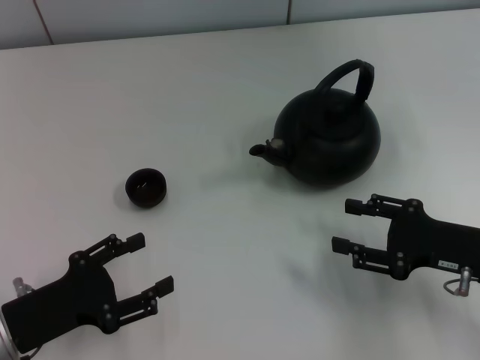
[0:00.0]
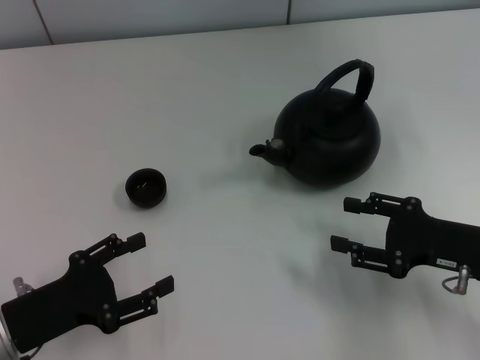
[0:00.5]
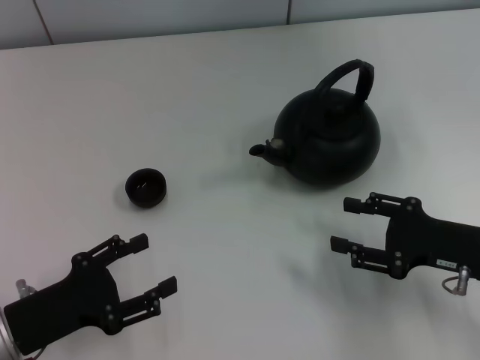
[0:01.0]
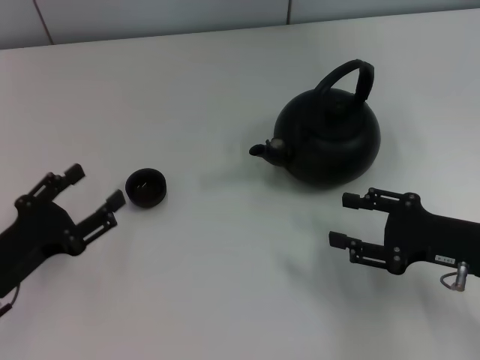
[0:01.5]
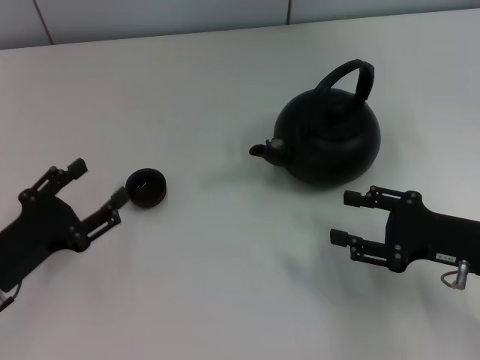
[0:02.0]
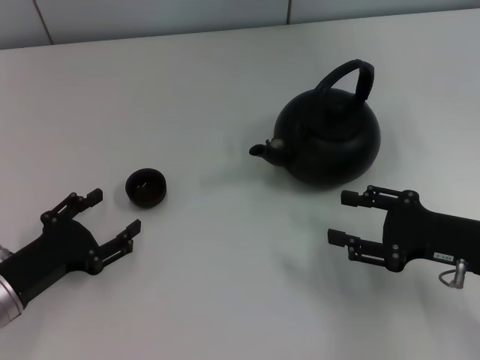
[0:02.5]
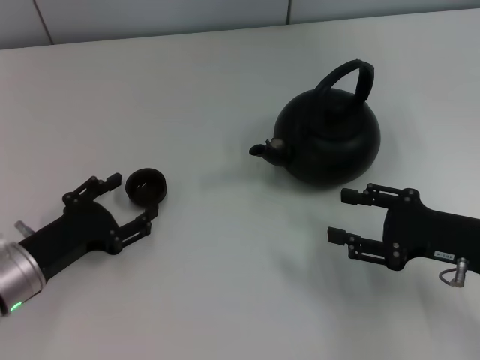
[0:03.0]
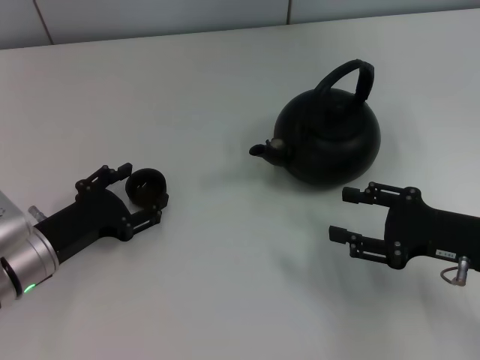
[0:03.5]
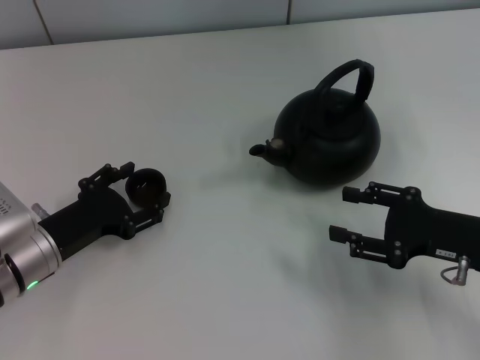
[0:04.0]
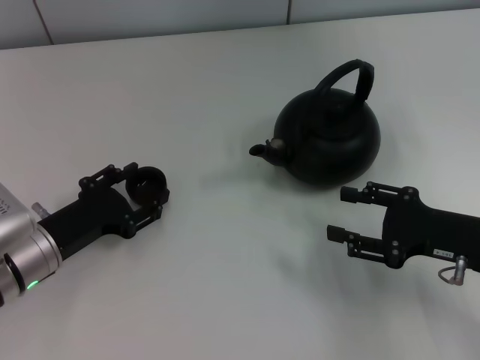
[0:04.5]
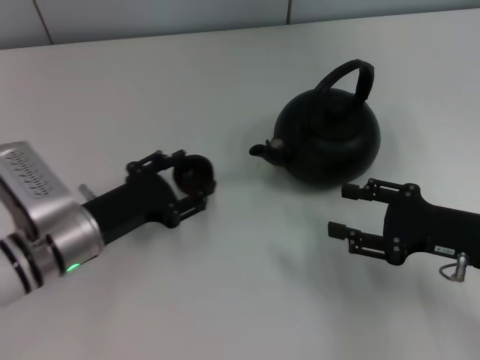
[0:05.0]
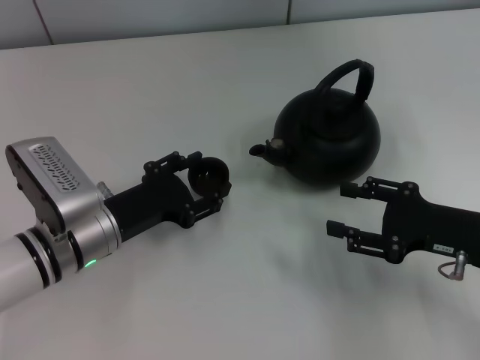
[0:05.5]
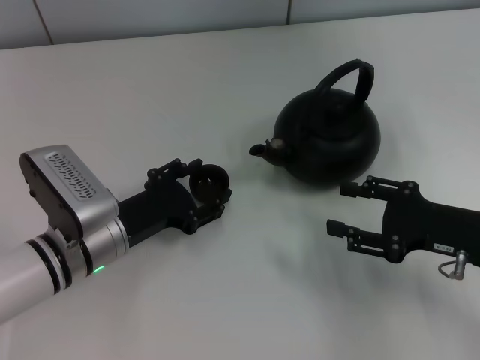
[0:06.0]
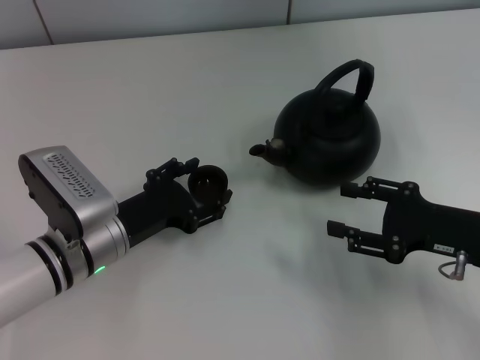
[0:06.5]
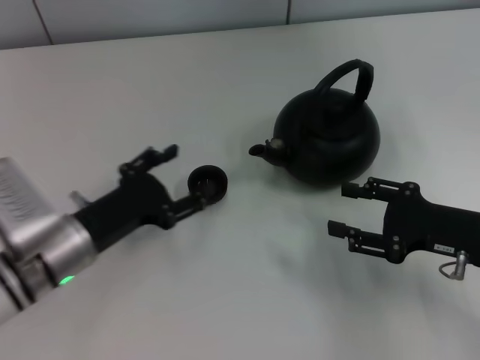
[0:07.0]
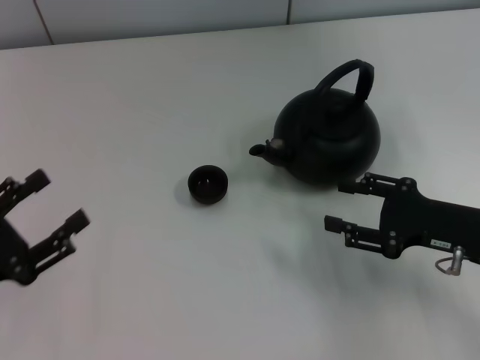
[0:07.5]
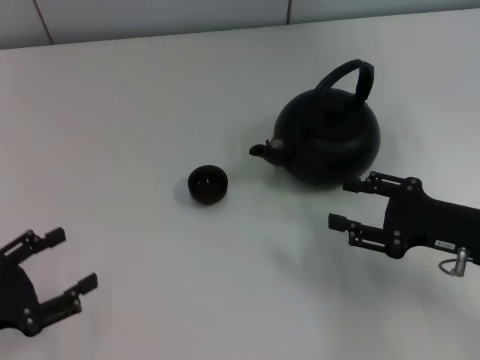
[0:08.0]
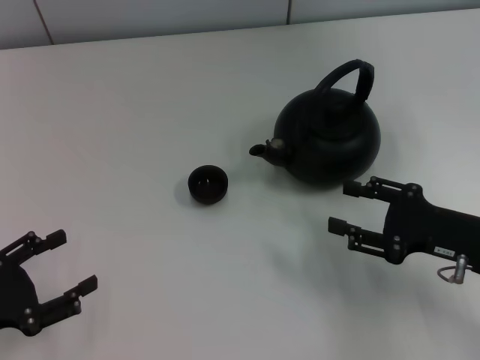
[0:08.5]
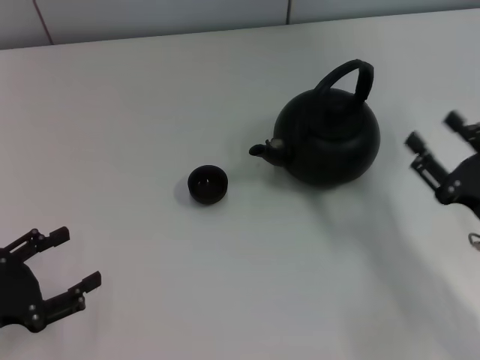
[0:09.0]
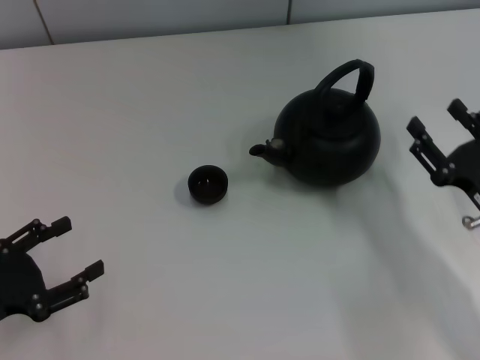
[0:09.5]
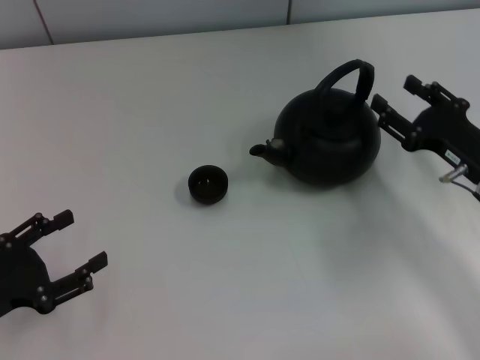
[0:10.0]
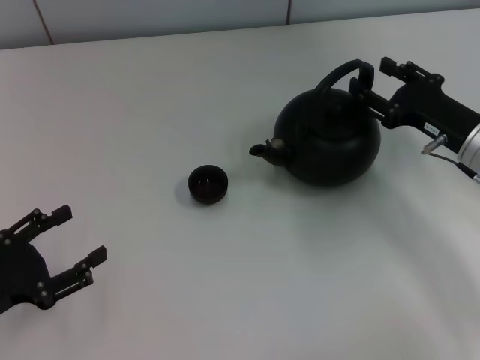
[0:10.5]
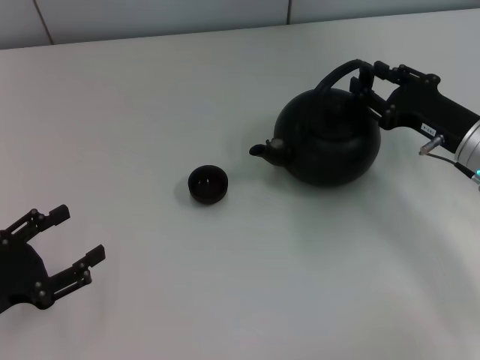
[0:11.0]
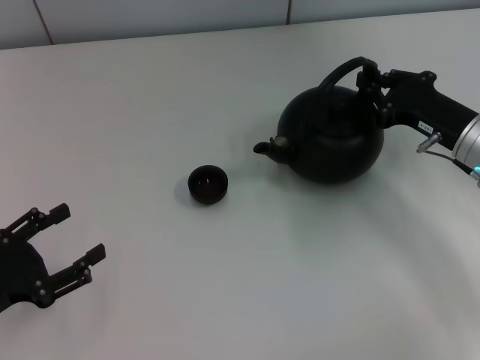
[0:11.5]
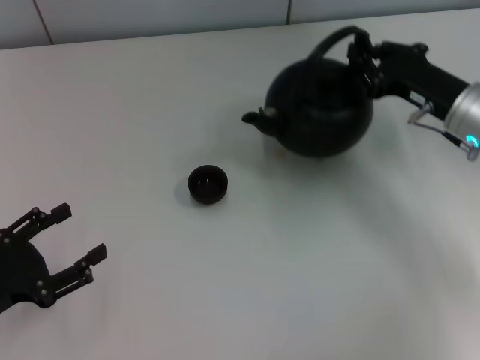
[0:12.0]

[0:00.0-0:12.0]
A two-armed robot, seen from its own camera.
Task of the whole recording: Grasp the handle of the teapot with one hand and pour tea into the teacup.
Step, 0:00.0 to 0:05.0: Pick up the teacup with the left gripper.
Step, 0:05.5 to 0:07.0: Place the teacup in the center of view with the left gripper.
0:02.0 to 0:04.0: The left gripper moves roughly 5 cm.
0:04.0 to 0:06.0: The left gripper travels to the right by approximately 5 cm, and closes.
0:06.0 to 0:08.0: The left gripper moves to the left and backward, roughly 20 cm, and opens.
0:10.0 to 0:12.0: The right gripper moves forward, about 5 cm, and closes its fingers.

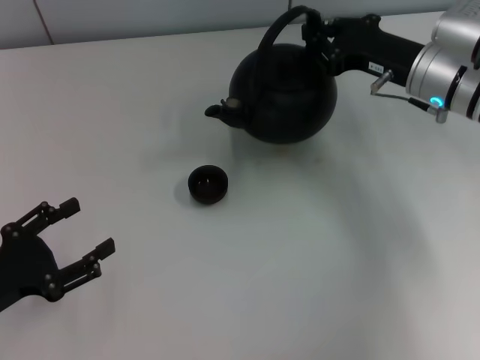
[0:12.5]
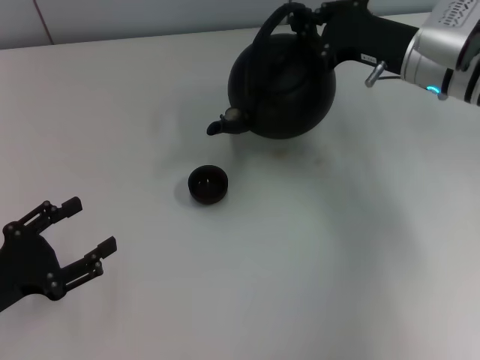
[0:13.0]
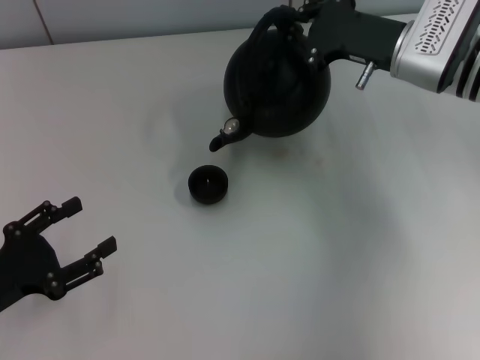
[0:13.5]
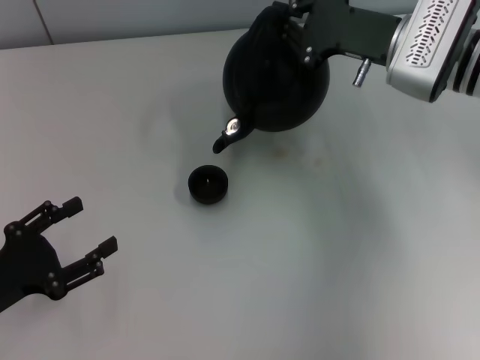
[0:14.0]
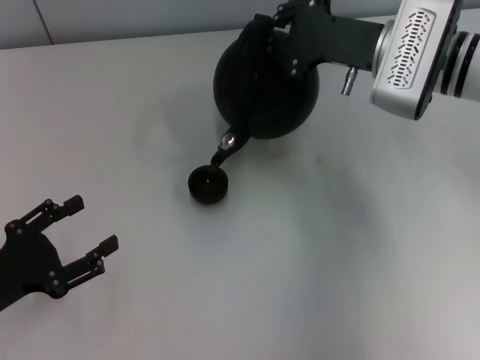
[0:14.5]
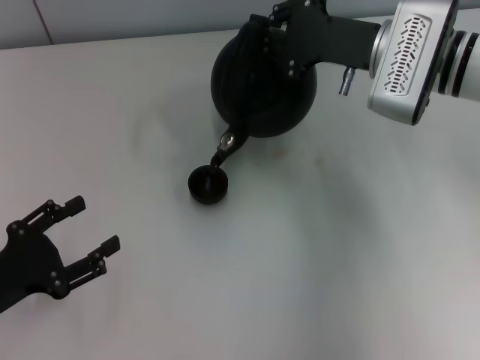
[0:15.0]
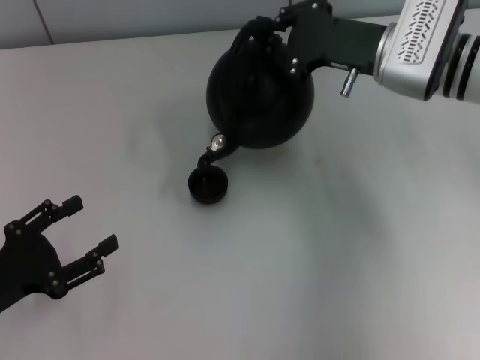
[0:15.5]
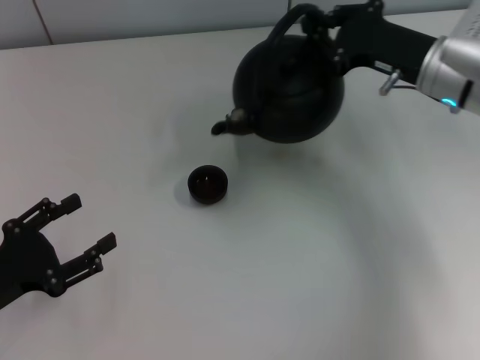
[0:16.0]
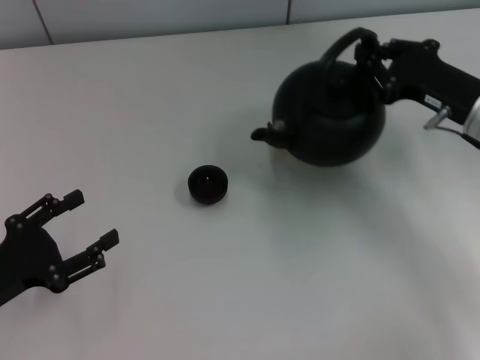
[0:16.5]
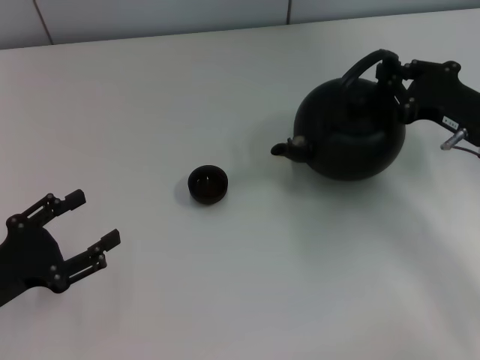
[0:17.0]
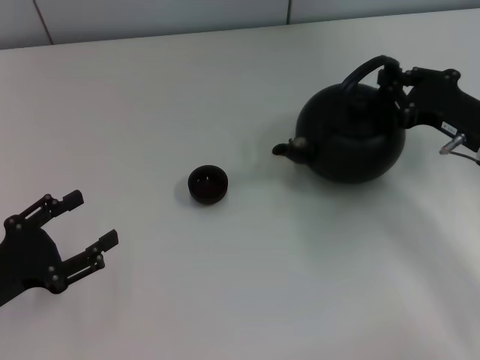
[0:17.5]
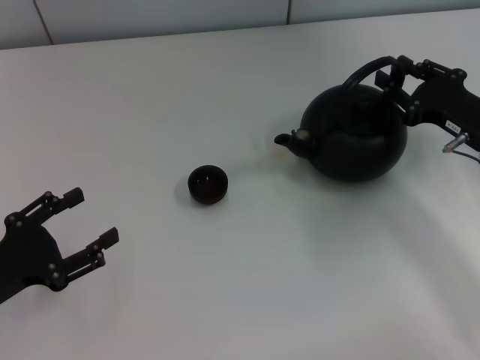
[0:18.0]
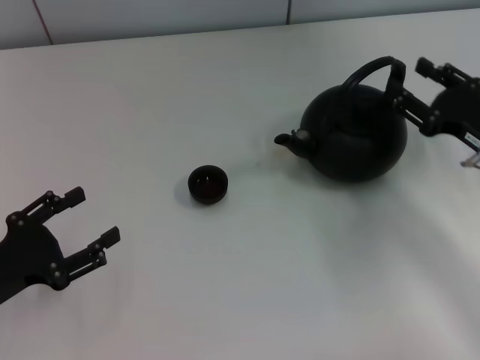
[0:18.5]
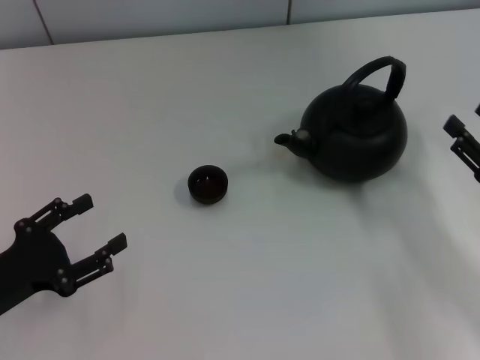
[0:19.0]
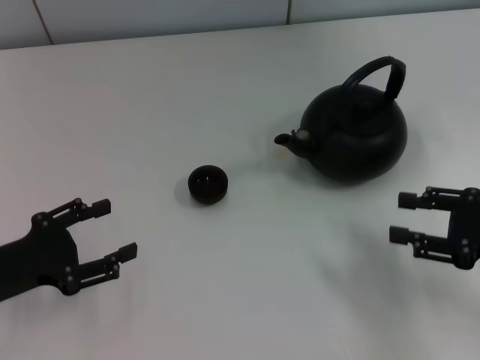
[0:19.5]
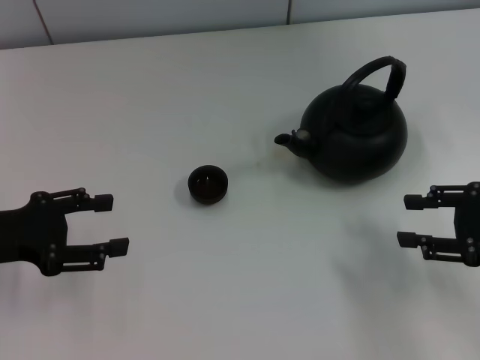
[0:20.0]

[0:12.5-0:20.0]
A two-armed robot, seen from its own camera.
Task of the whole recording: Grasp the handle of the teapot with one hand and pour tea into the teacup.
Step, 0:16.0 to 0:18.0: Put down the teapot with the right gripper.
0:12.5 to 0:14.5: The right gripper ends up approximately 5 cm from where it was.
0:14.5 to 0:16.5: The right gripper moves to the right and backward, about 10 cm.
0:16.5 to 0:18.0: The grippers make only small movements.
0:18.0 to 0:20.0: The left gripper goes about 10 cm forward and upward; the right gripper is displaced backward by roughly 10 cm, and opens.

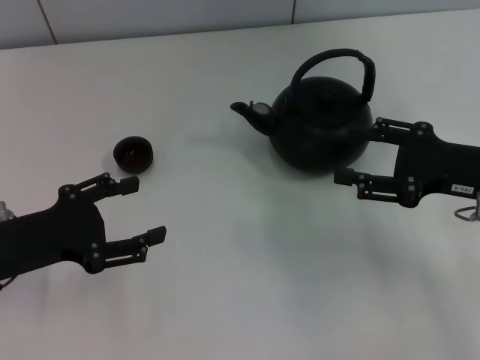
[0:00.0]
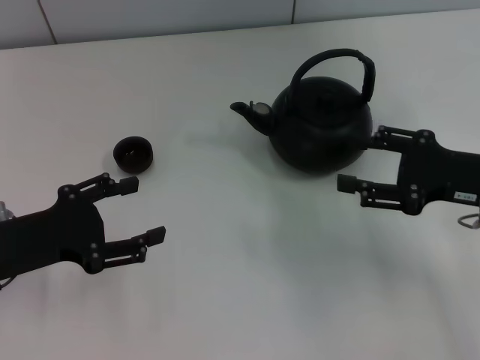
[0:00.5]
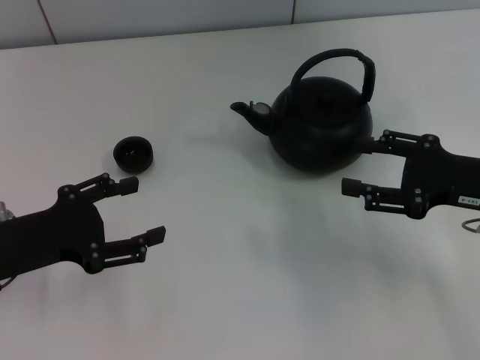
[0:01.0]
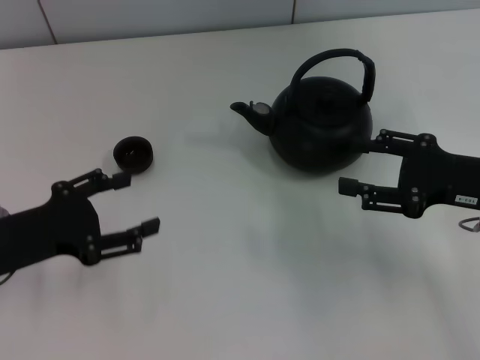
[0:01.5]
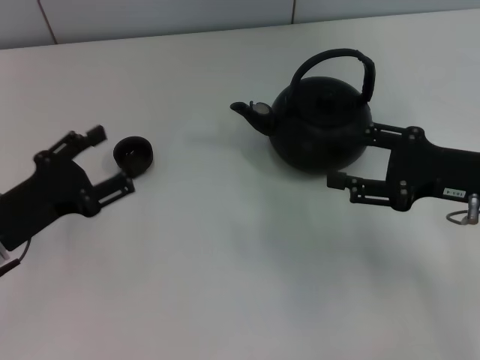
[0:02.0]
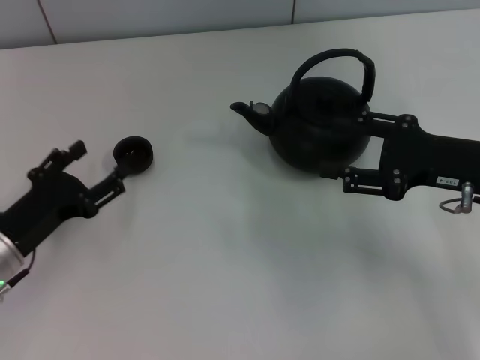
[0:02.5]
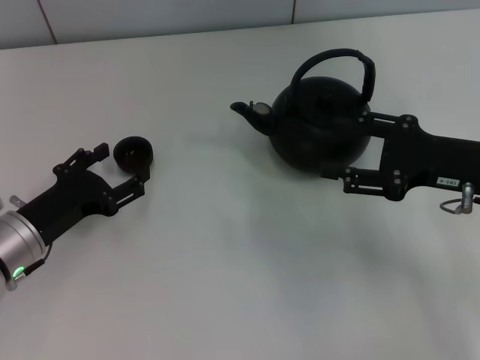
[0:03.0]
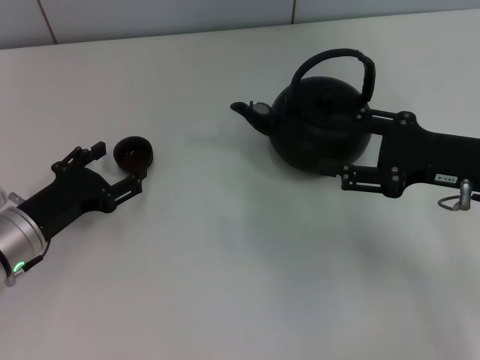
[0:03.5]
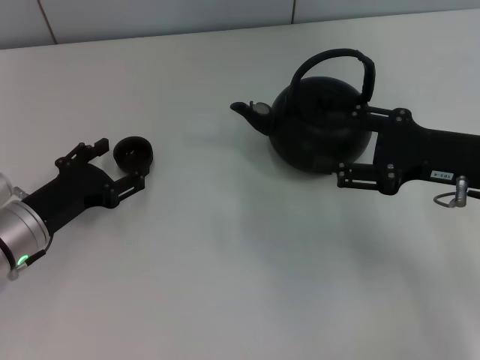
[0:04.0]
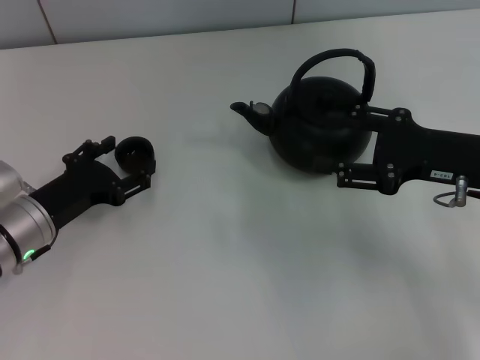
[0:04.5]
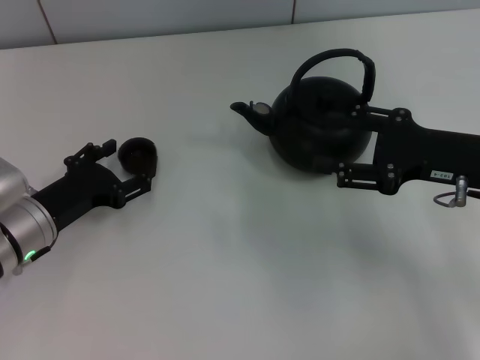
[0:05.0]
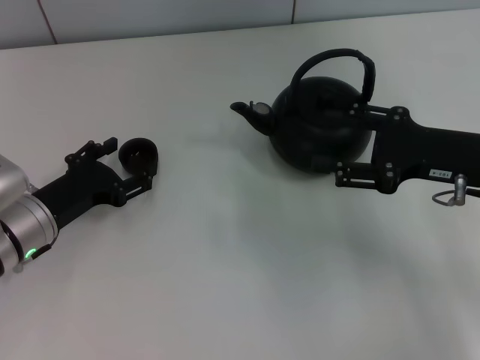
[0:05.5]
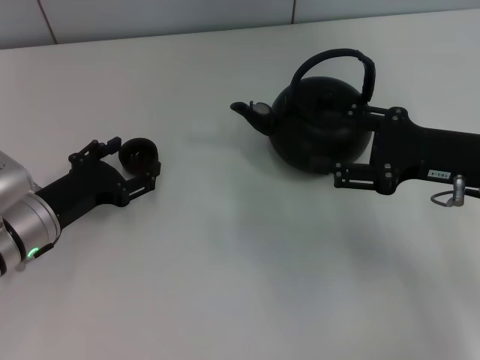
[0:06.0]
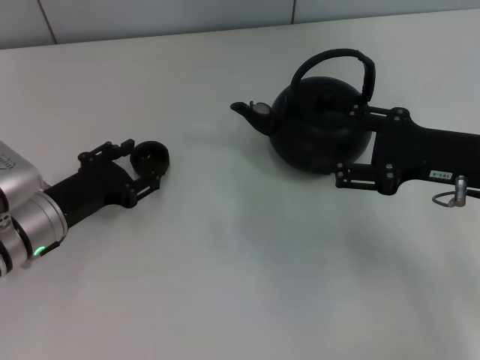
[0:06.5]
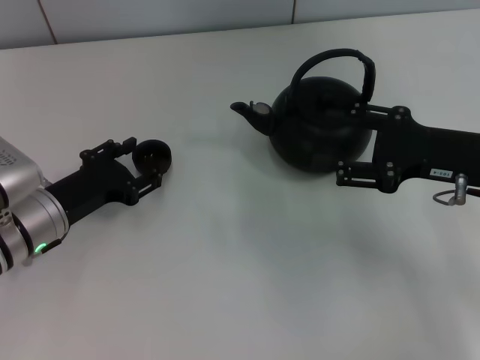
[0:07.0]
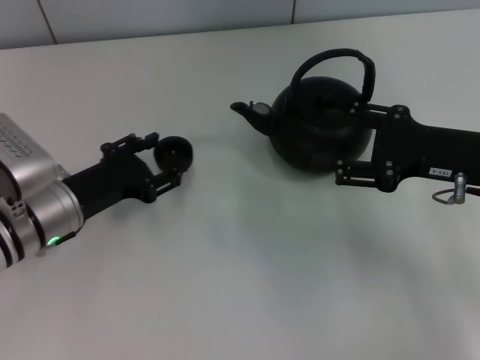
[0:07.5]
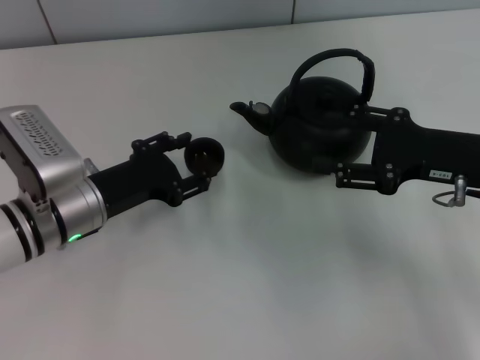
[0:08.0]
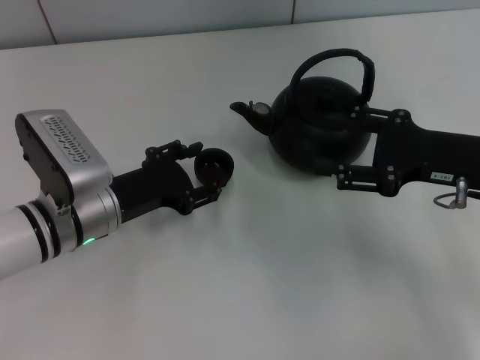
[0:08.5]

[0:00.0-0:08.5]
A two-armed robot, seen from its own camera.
Task of the whole recording: Grasp the handle of the teapot with one hand and pour tea into the teacup.
Step, 0:00.0 to 0:07.0: Pick up the teacup with the left gripper.
0:02.0 to 0:04.0: The left gripper moves some 5 cm.
0:04.0 to 0:06.5: There are only small adjustments of the grippers.
0:06.5 to 0:08.5: The left gripper shifts roughly 5 cm to the right, and closes its fingers.
